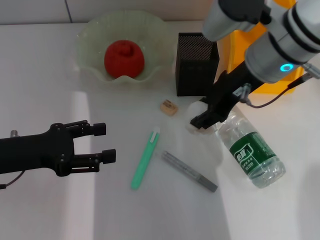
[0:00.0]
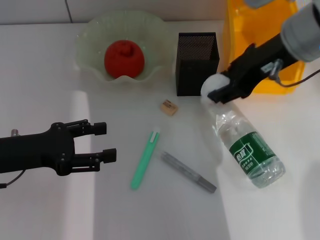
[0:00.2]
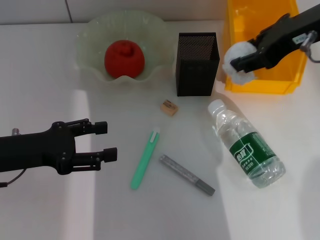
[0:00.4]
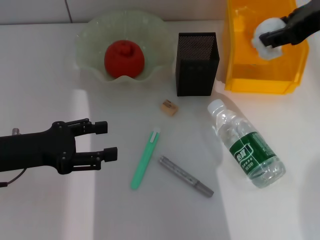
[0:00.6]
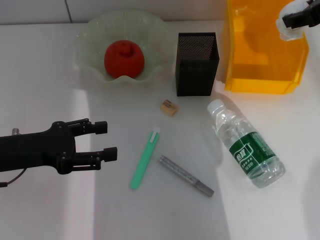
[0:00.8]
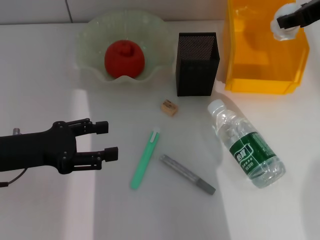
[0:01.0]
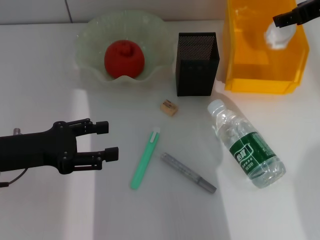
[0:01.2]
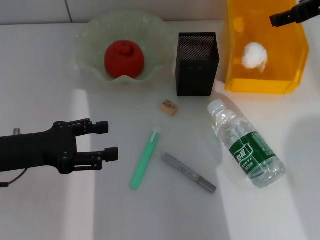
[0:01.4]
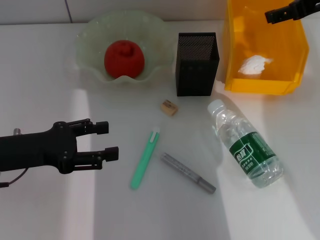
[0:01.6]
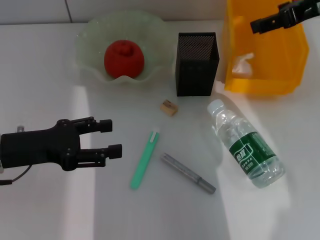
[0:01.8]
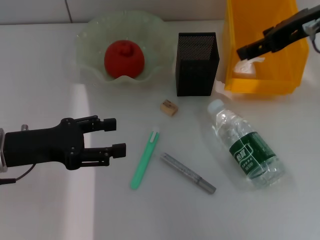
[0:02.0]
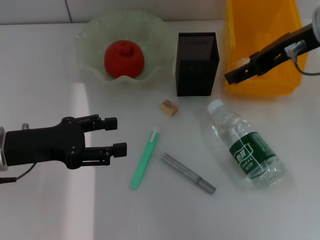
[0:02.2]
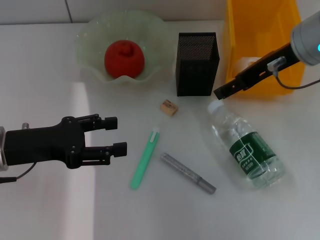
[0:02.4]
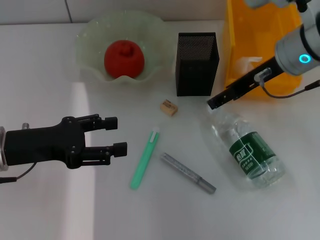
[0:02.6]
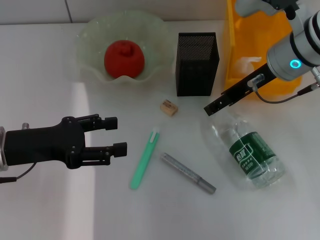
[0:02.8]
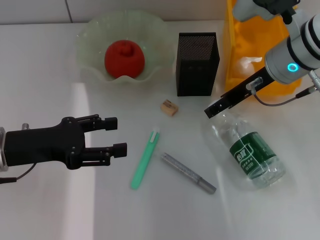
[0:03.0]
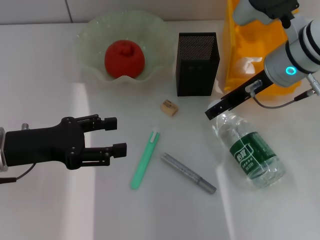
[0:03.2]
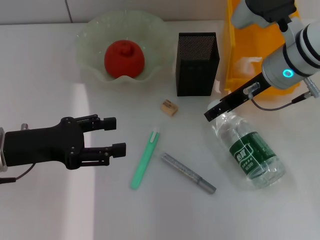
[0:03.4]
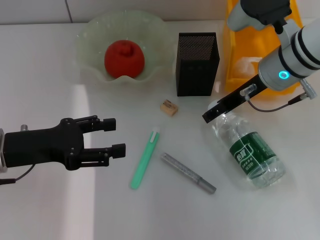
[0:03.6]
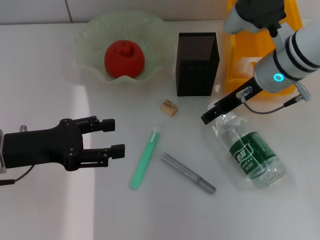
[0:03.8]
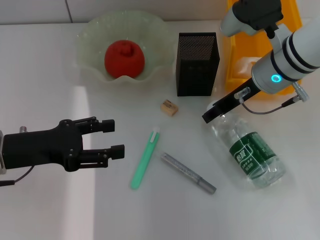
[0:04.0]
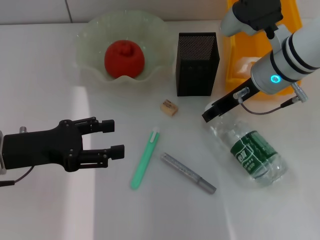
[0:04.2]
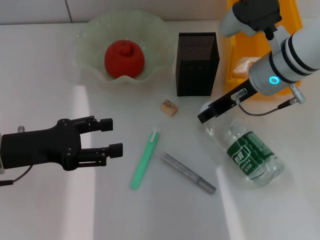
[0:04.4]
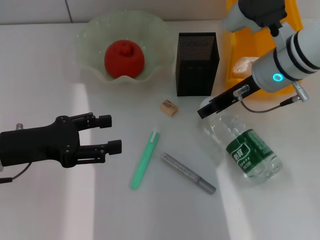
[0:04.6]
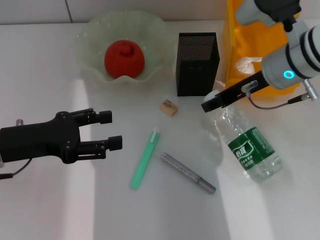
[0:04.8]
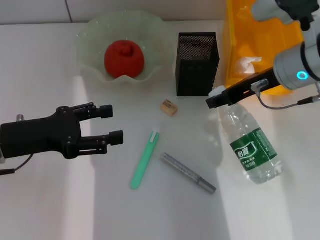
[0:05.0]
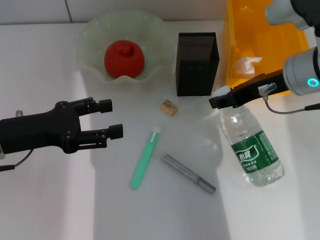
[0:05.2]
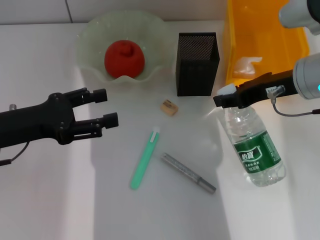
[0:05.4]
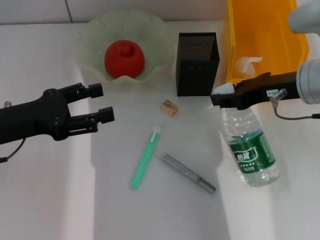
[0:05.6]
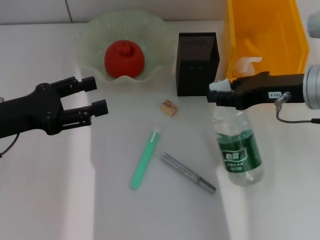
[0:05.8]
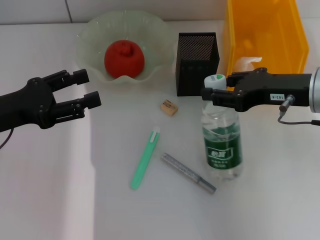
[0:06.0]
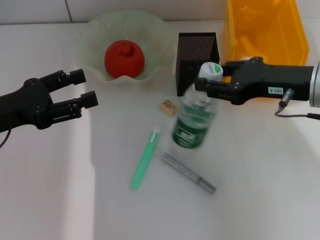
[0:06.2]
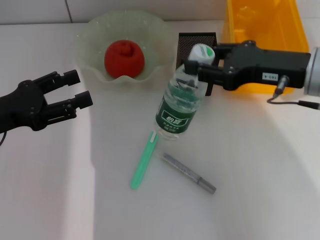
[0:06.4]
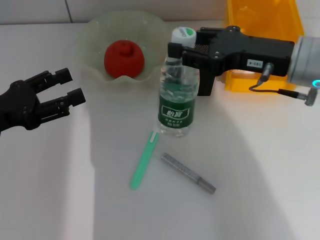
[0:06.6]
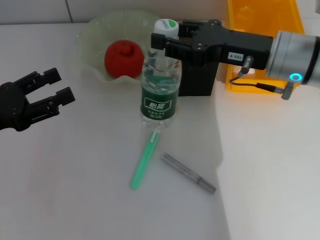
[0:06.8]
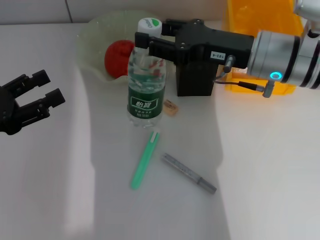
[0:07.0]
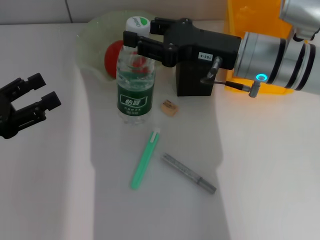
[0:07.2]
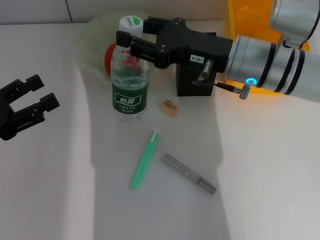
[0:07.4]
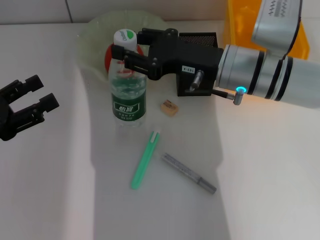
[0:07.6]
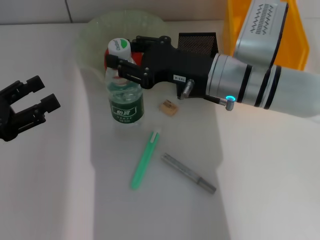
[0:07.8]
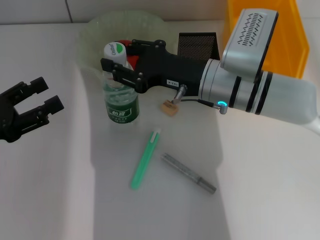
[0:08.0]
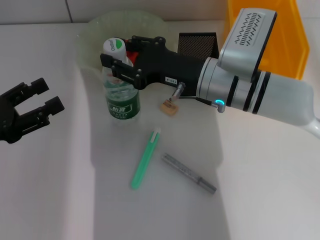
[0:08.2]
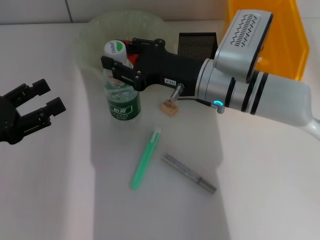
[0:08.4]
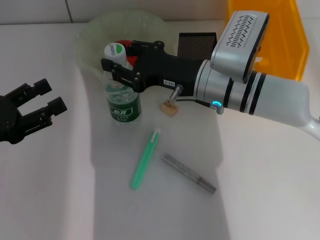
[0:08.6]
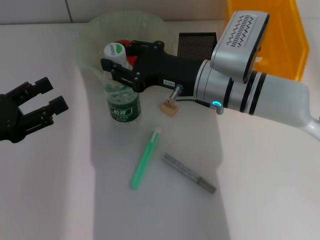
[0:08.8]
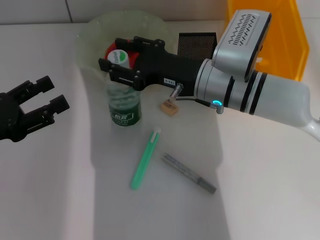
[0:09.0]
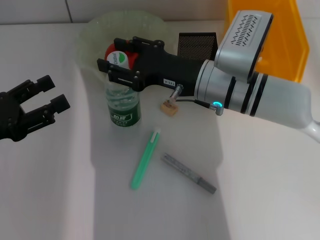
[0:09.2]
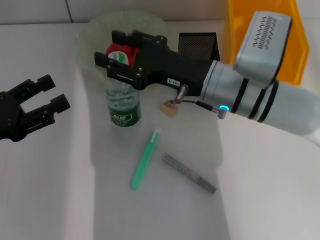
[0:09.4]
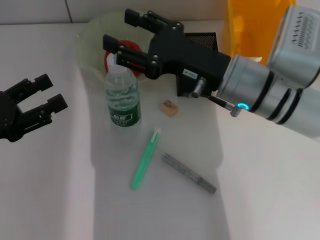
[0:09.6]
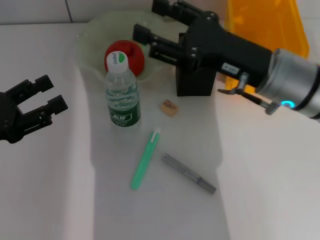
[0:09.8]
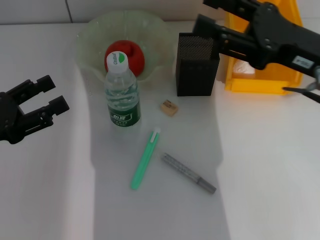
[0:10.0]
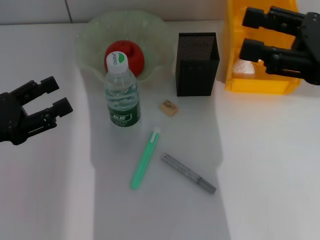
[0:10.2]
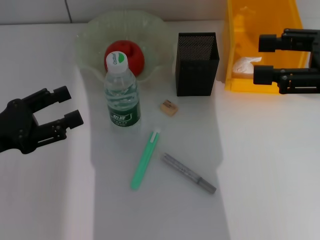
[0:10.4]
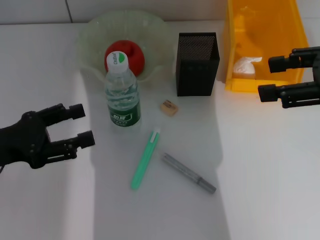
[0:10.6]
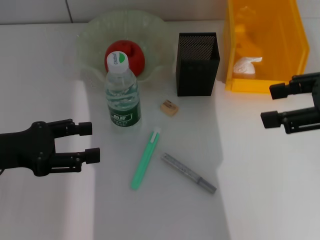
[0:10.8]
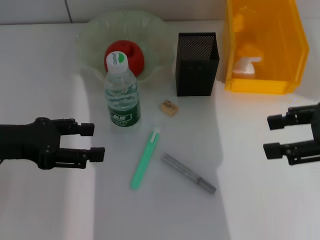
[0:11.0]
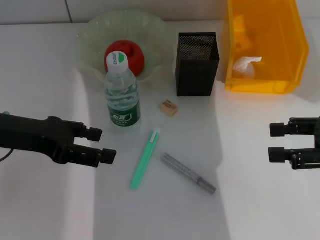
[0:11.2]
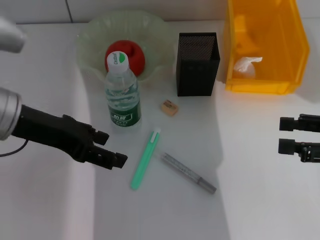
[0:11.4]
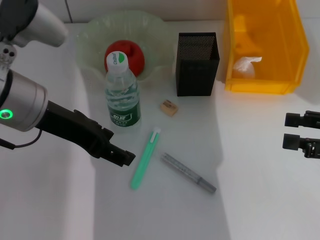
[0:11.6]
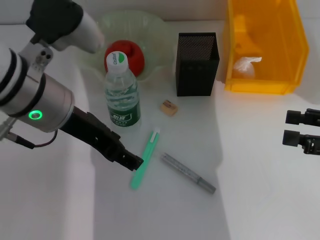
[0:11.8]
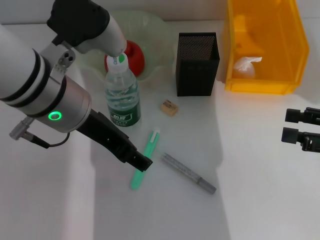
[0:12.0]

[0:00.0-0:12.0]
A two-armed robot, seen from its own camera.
Step, 0:00.0 to 0:01.8: Place the paper ball into the trash can with the right hand.
Step, 0:02.0 to 0:04.2: Grab the water bottle with the right hand.
Step, 0:04.4 to 0:09.4: Place the water bottle on the table with the right hand.
0:00.0 to 0:01.6: The right gripper heads to the right, covering about 10 cm, and opens.
0:01.6 to 0:03.0: The right gripper moves downward and to the left, about 10 cm.
0:03.0 to 0:04.4: The right gripper closes up.
0:04.4 to 0:06.0: The right gripper shifts approximately 10 cm backward and to the right.
0:06.0 to 0:07.6: The left gripper moves some 5 cm; the right gripper travels to the left and forward by about 10 cm.
0:07.6 to 0:09.0: The grippers make only small movements.
0:09.0 to 0:10.4: The right gripper travels to the right, upward and backward by roughly 25 cm.
0:10.4 to 0:12.0: The right gripper moves downward and to the right, approximately 15 cm, while the left gripper travels to the right and upward by about 20 cm.

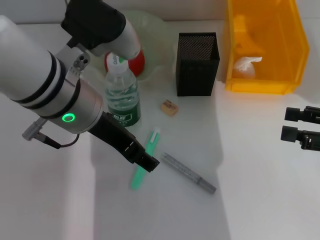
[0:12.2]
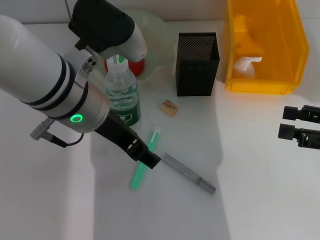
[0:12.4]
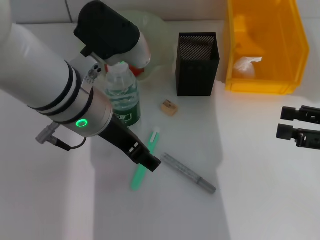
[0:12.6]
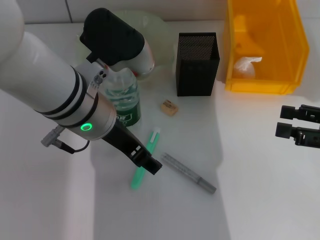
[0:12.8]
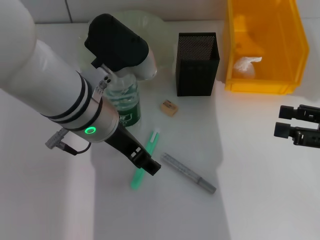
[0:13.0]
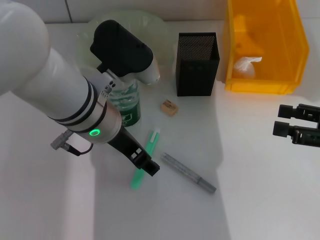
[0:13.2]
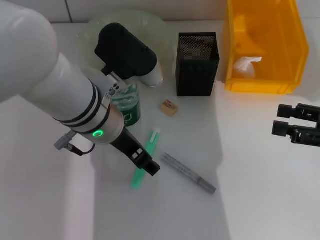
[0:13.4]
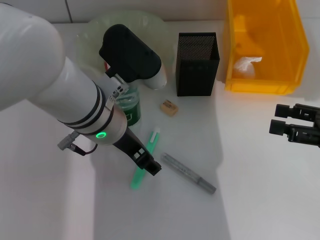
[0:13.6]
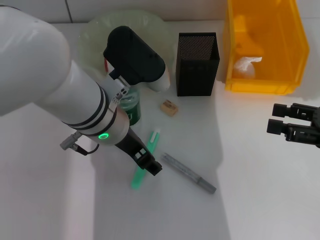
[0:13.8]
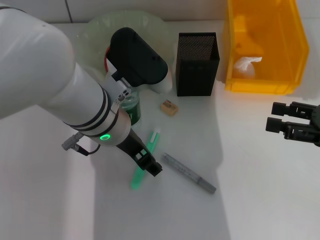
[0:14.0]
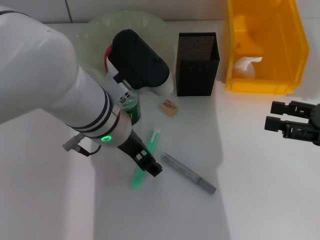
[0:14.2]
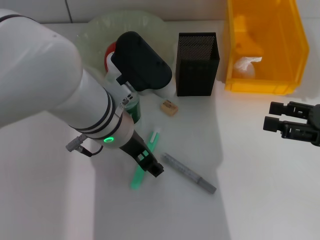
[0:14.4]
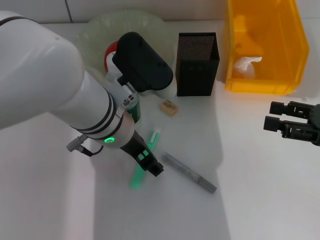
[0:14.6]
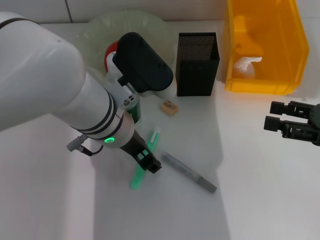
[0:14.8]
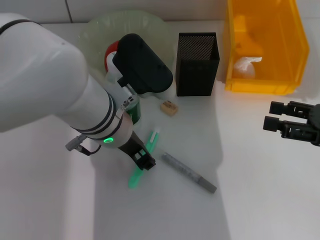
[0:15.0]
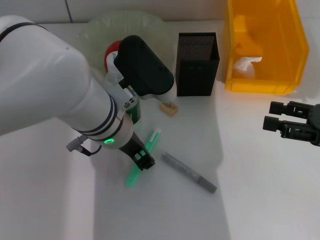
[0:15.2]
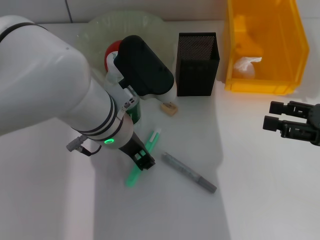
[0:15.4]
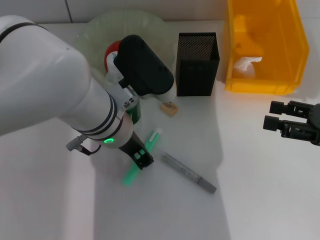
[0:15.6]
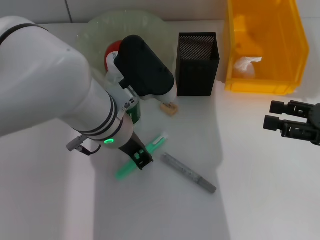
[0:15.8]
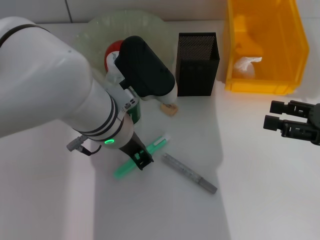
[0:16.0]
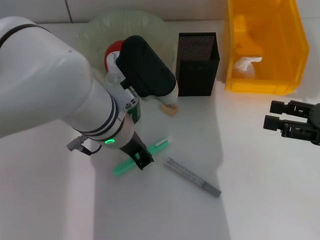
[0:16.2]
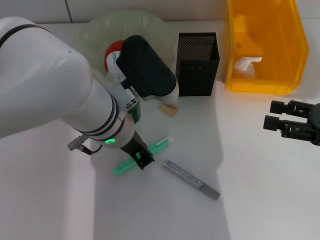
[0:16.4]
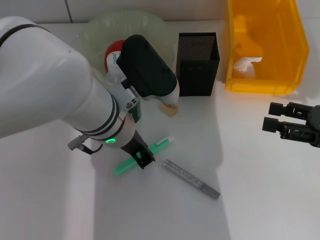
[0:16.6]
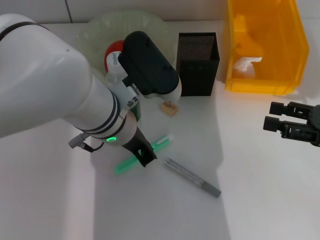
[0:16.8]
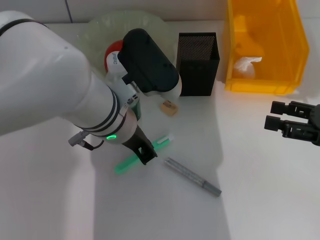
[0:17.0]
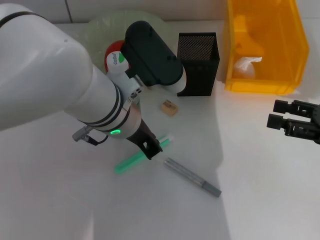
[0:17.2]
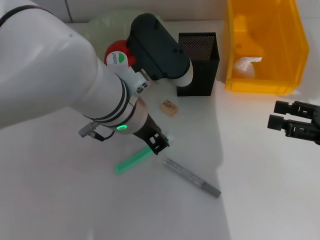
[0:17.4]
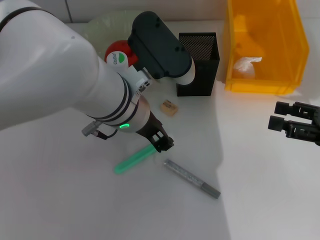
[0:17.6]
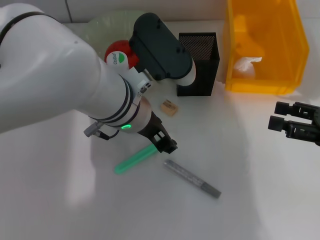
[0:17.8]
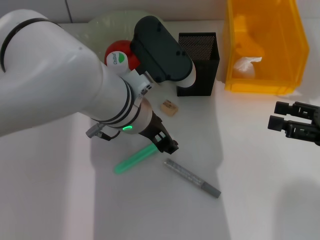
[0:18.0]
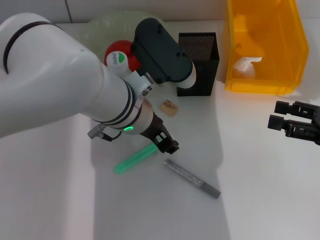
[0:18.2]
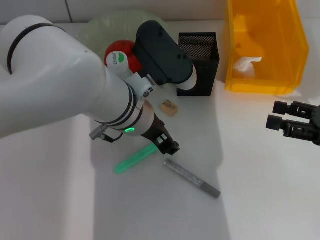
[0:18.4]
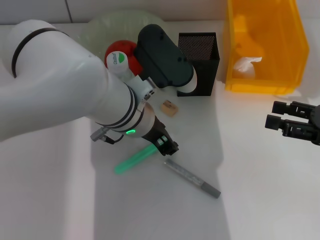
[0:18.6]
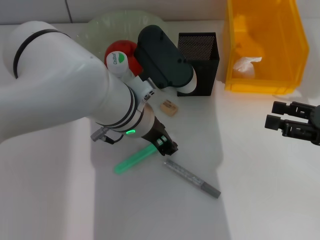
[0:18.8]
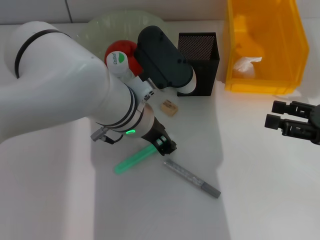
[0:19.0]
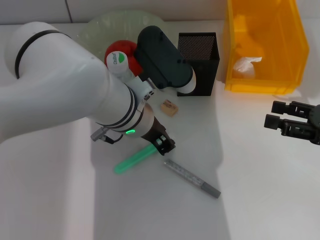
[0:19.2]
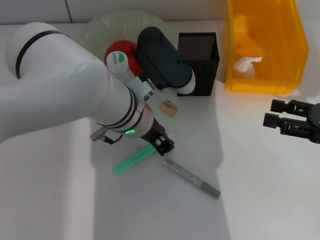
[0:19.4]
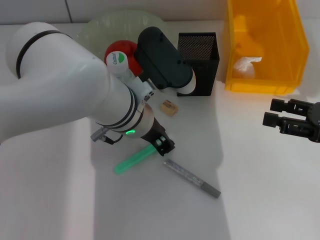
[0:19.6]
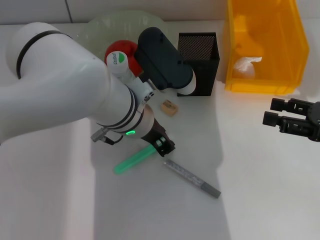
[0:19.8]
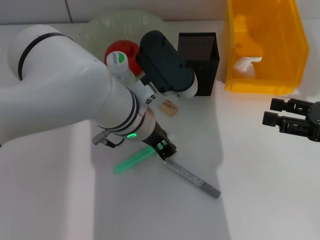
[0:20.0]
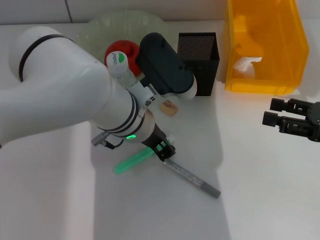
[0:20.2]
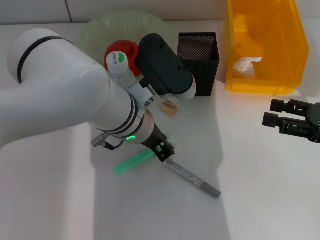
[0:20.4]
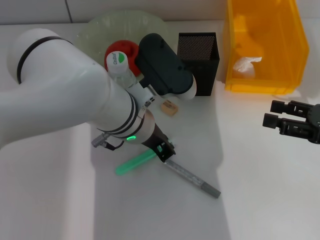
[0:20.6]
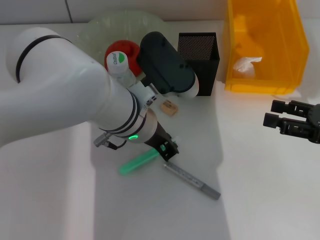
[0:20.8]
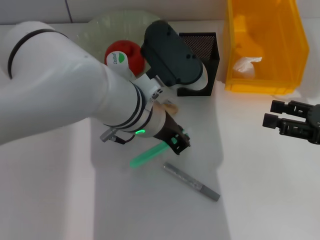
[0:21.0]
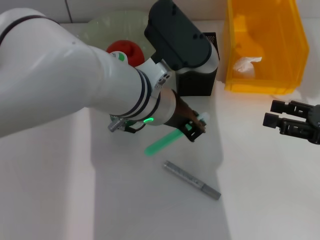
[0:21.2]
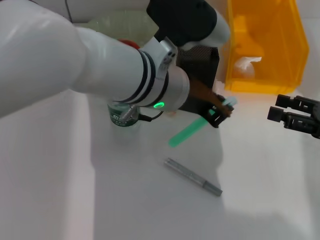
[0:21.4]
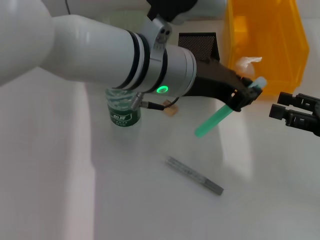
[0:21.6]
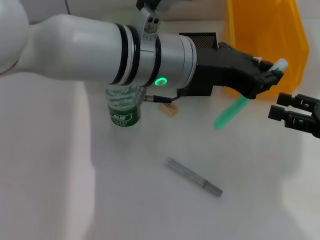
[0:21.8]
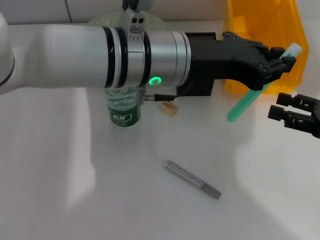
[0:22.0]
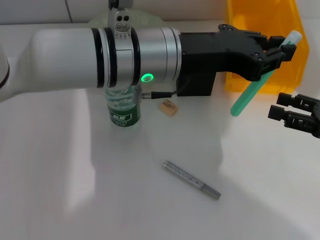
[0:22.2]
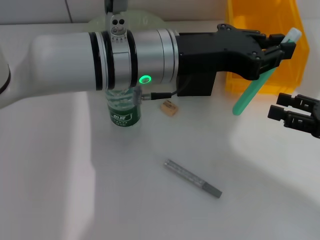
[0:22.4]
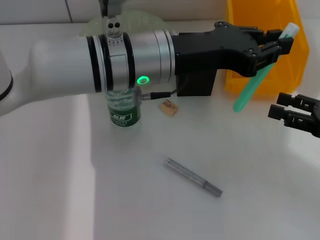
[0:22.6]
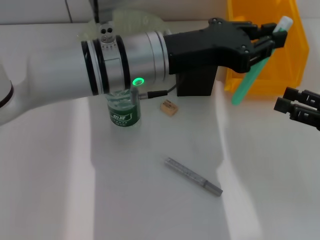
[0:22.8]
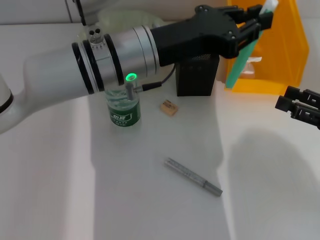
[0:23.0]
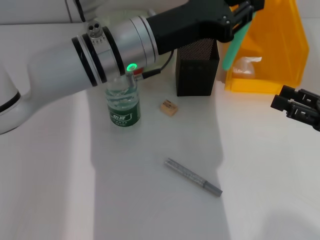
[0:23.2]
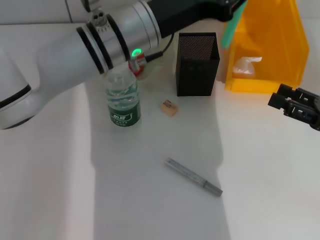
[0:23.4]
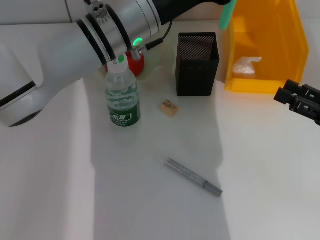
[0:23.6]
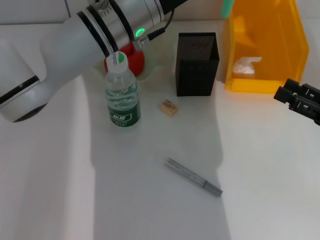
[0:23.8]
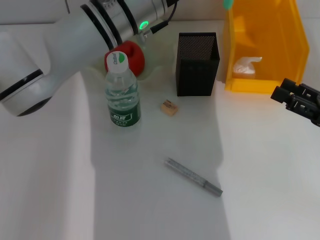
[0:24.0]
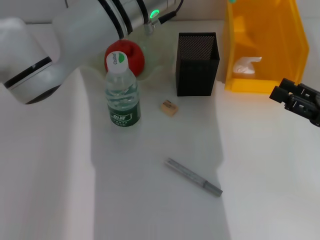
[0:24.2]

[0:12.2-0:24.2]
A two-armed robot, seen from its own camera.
Step, 0:12.2 to 0:20.4: Grab the blue utility knife with the left hand.
0:12.2 to 0:13.8: The left gripper travels downward by about 5 cm.
0:13.8 to 0:15.2: The grippers make only small movements.
0:15.2 to 0:16.6: The left gripper closes.
0:16.6 to 0:18.2: The left gripper opens.
0:18.2 to 0:19.8: The left gripper closes its fingers.
0:19.8 to 0:21.2: The grippers make only small movements.
0:22.6 to 0:24.2: The left gripper goes about 5 cm forward.
